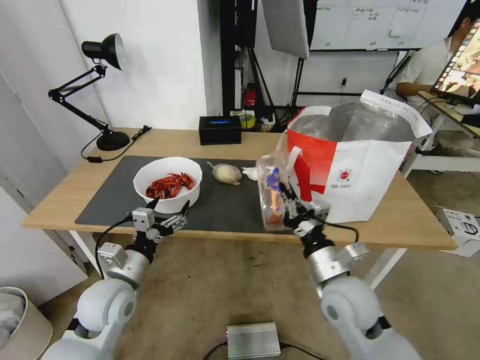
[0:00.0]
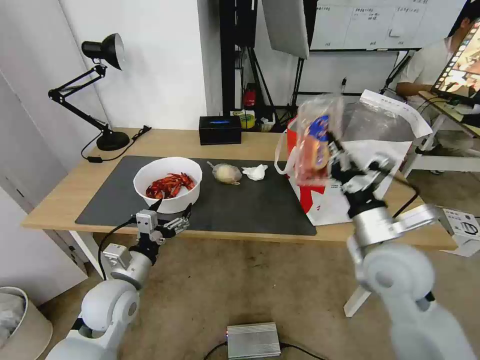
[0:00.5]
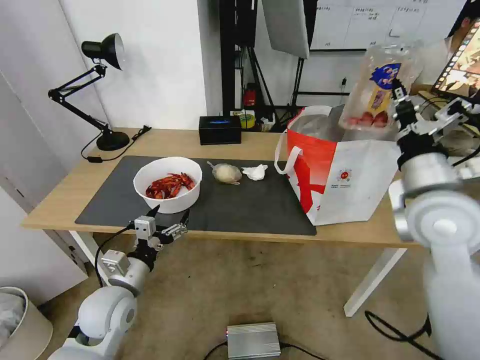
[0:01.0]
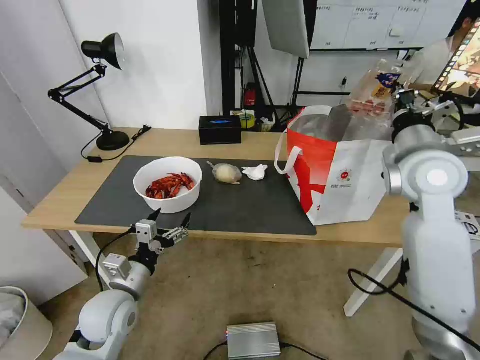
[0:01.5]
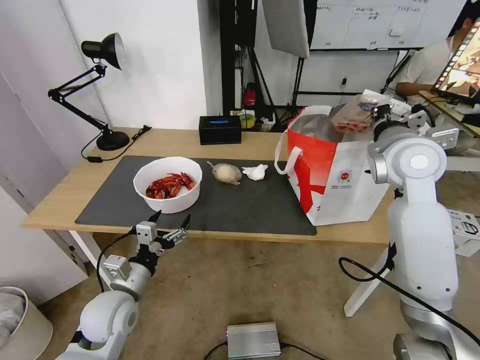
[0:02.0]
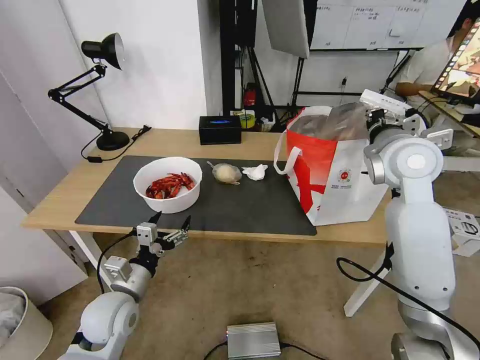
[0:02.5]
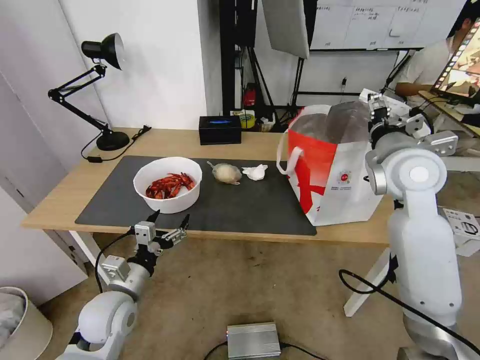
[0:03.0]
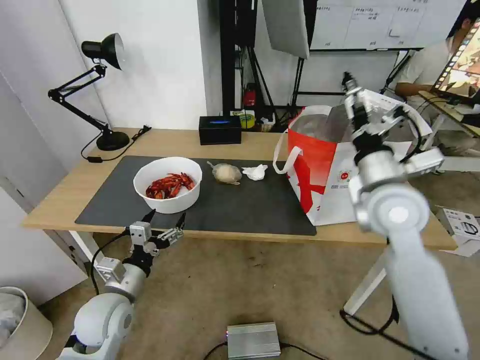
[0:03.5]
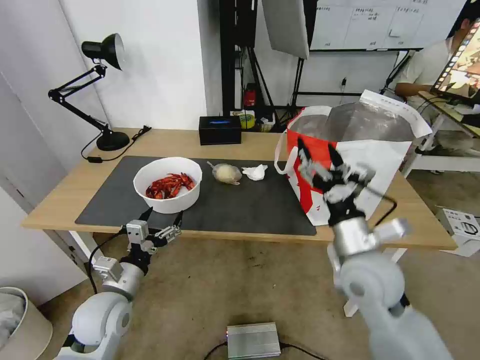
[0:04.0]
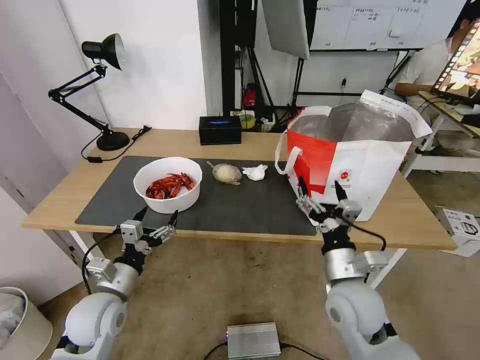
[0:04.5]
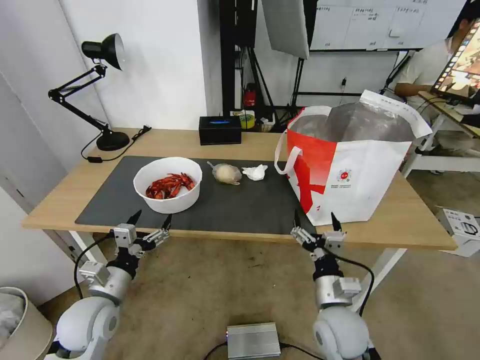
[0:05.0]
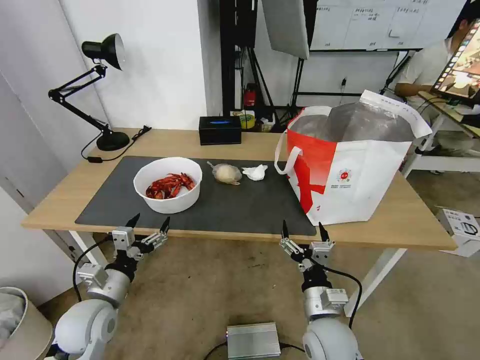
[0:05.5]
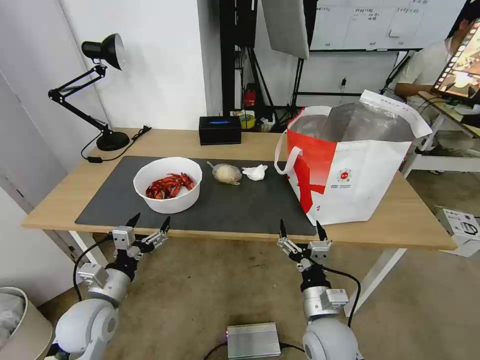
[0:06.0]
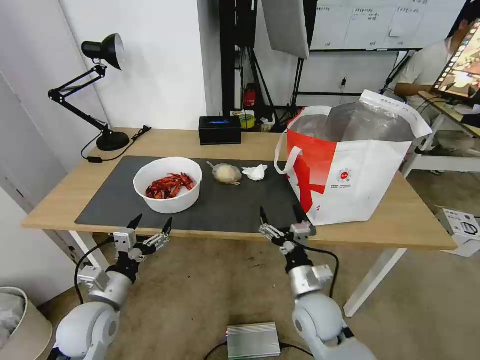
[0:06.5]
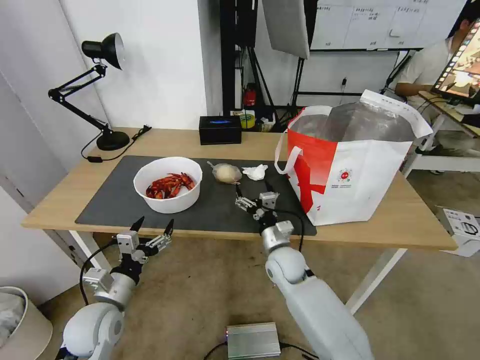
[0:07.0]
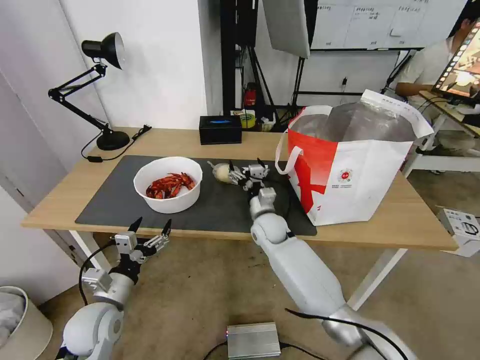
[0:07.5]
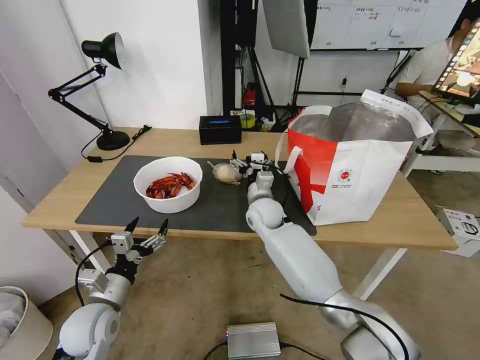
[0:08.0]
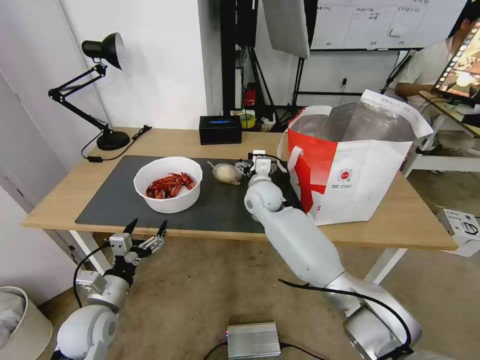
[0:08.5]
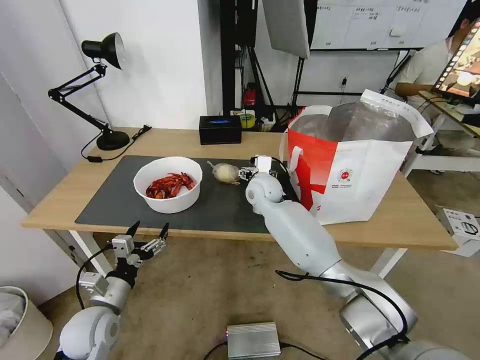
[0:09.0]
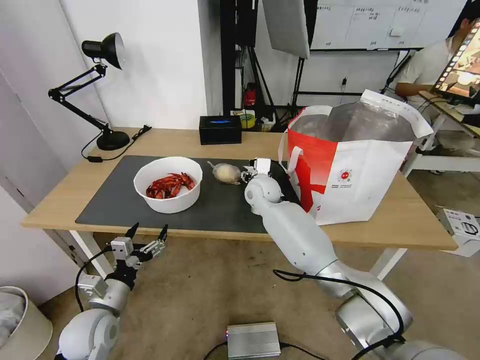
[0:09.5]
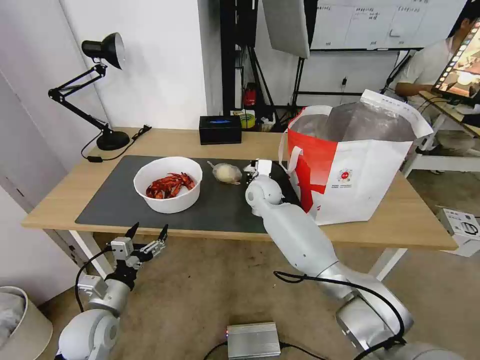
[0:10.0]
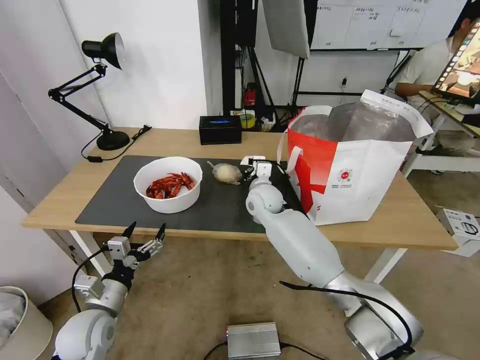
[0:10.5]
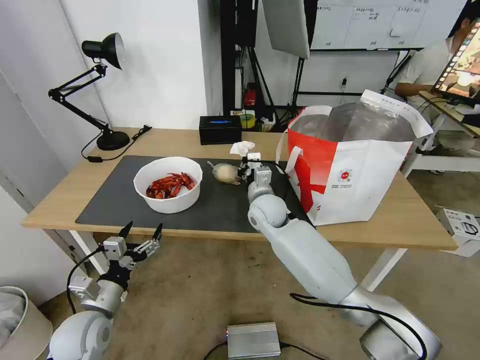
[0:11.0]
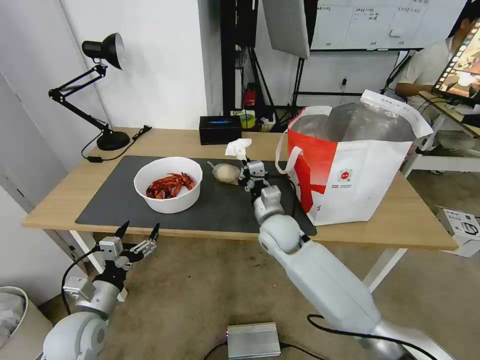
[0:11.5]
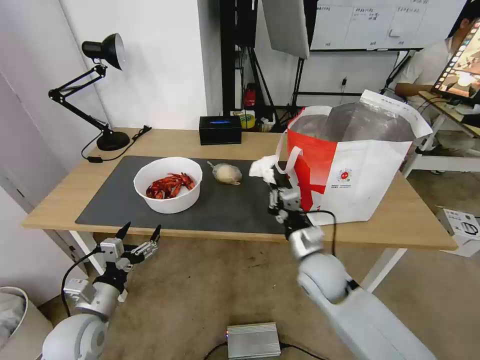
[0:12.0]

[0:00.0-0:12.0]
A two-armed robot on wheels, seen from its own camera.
Task of the whole recording: Pick up the trash from the table and place it into the takeout bag.
0:00.0 to 0:02.0: The right gripper travels upward, forward and to the right by roughly 30 cm.
0:02.0 to 0:04.0: The right gripper travels backward, downward and to the left by some 20 cm, and opens its fingers.
0:04.0 to 0:06.0: The right gripper moves downward and backward, roughly 15 cm.
0:06.0 to 0:08.0: The right gripper is displaced forward by approximately 30 cm.
0:08.0 to 0:10.0: The right gripper changes place by about 5 cm, and closes its fingers.
0:10.0 to 0:12.0: The right gripper shifts roughly 25 cm backward and to the right.

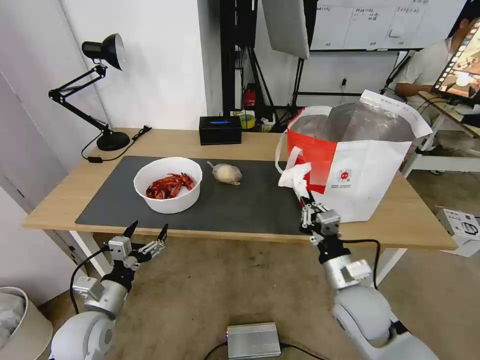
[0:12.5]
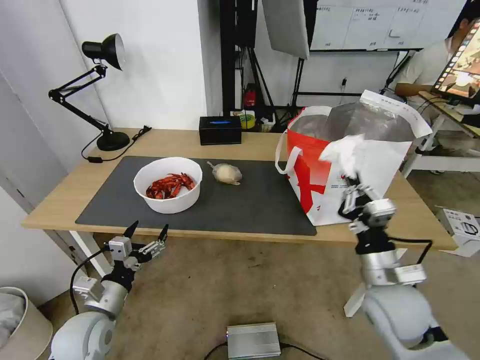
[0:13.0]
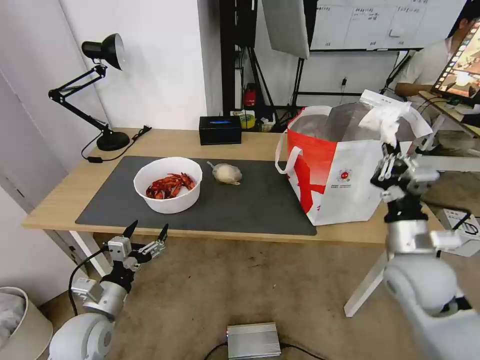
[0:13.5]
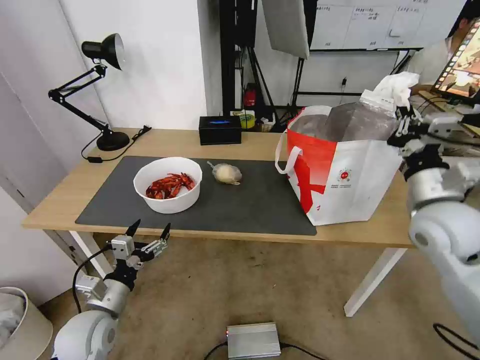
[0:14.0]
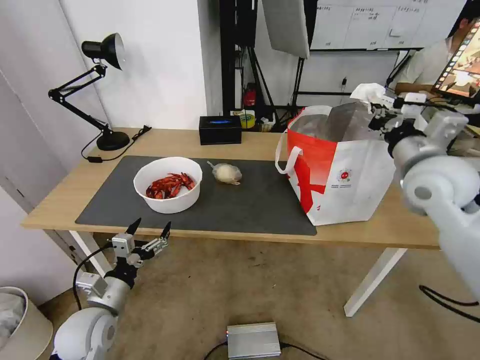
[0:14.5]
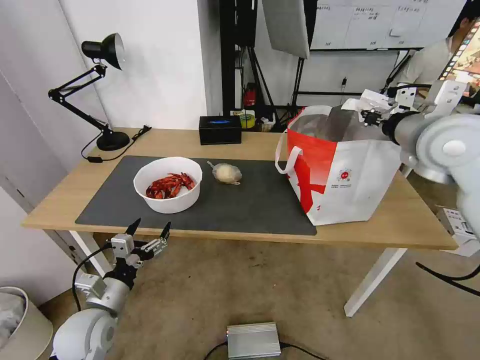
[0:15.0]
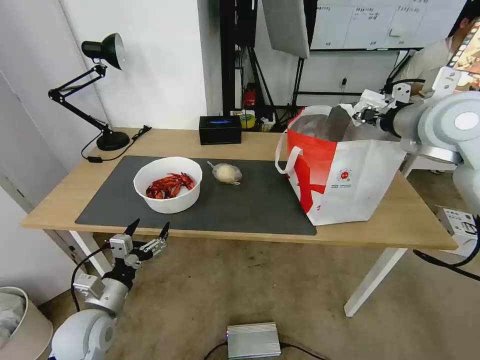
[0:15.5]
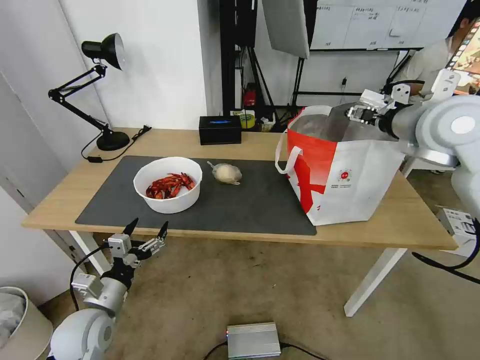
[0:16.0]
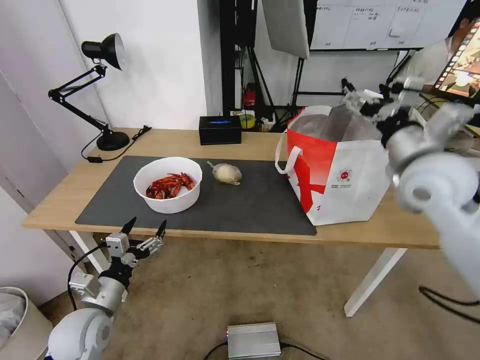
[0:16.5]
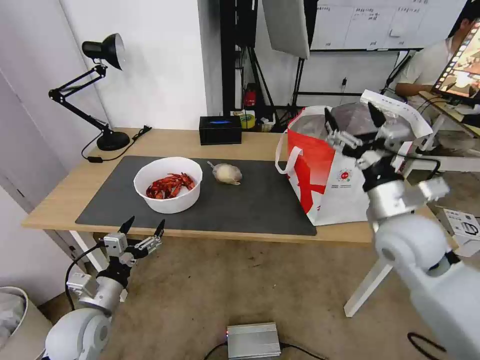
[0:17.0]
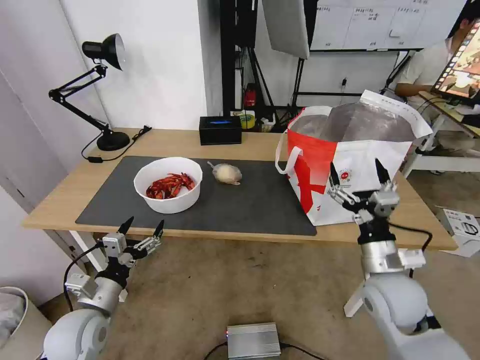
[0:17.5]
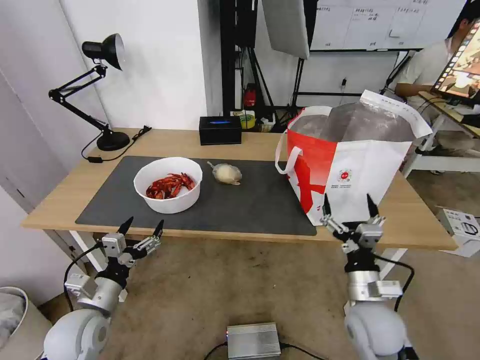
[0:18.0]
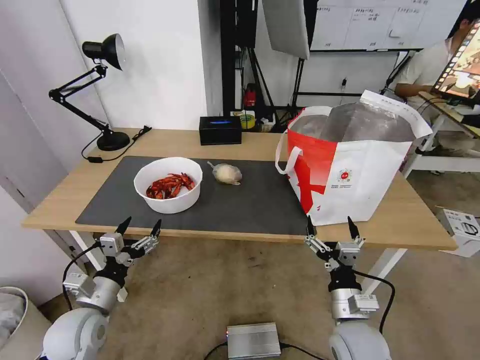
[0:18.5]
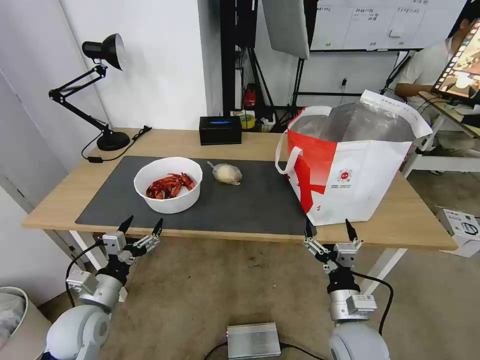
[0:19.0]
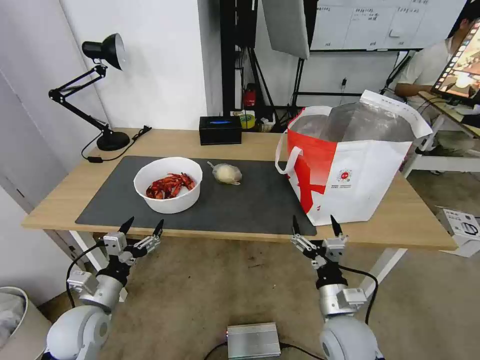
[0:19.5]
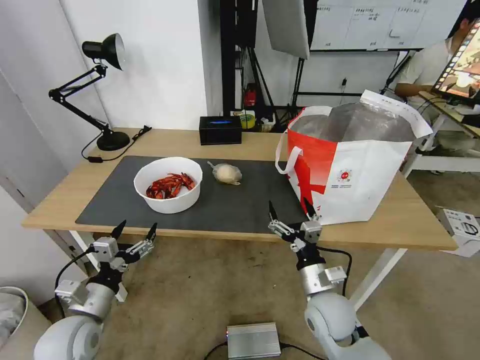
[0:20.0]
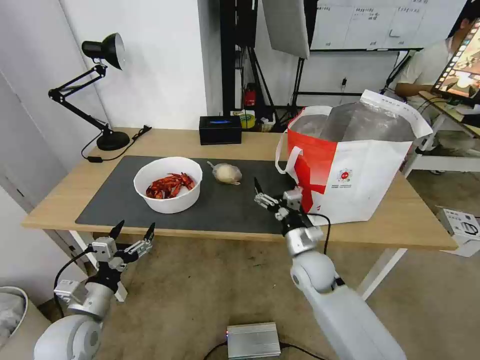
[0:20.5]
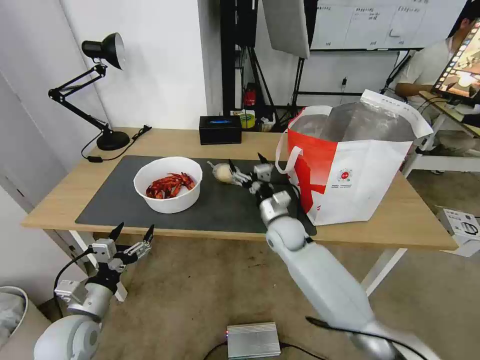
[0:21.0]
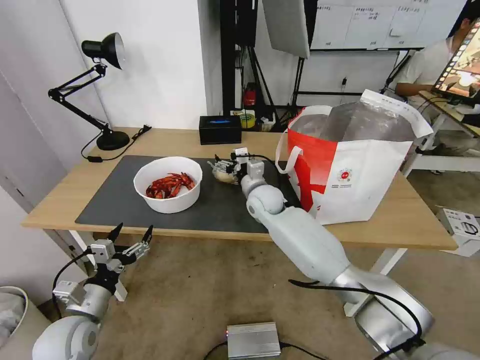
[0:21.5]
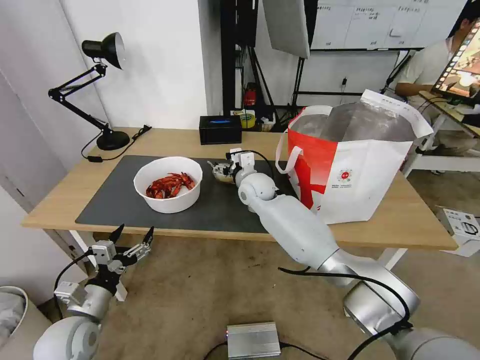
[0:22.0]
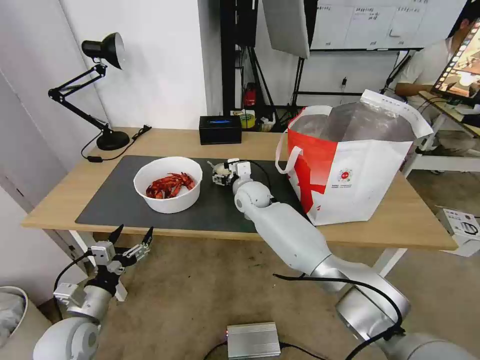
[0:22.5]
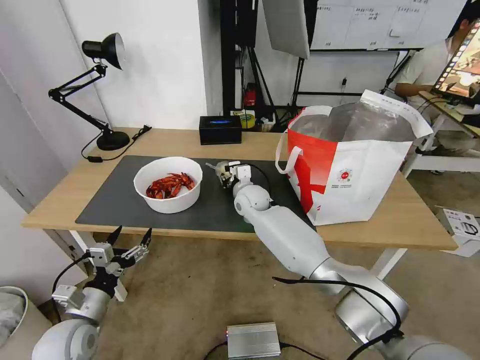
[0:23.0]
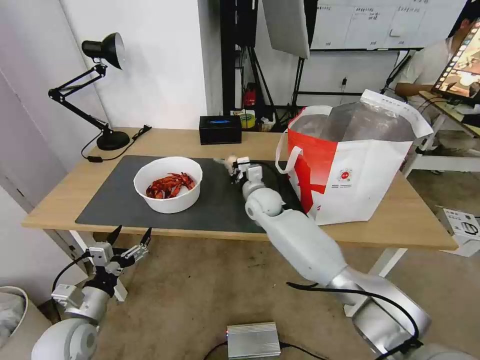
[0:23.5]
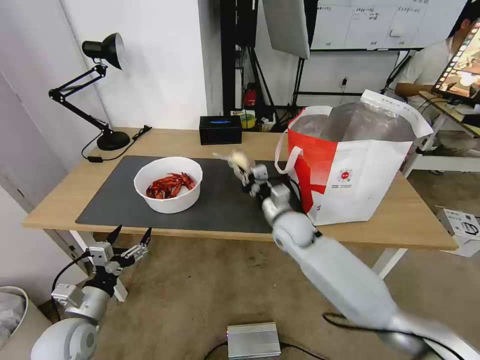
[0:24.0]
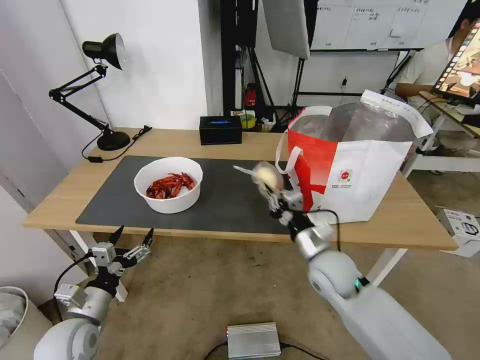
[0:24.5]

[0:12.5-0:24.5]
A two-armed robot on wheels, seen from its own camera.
Task of the whole recording: Pick up the trash from the table and place it into the takeout bag.
0:12.5 to 0:14.5: The right gripper moves upward, forward and to the right, roughly 30 cm.
0:14.5 to 0:16.5: The right gripper reaches approximately 10 cm upward, then returns, and opens.
0:16.5 to 0:18.5: The right gripper heads downward and backward, covering approximately 30 cm.
0:18.5 to 0:20.5: The right gripper goes about 15 cm forward.
0:20.5 to 0:22.5: The right gripper heads forward and to the left, covering about 20 cm.
0:22.5 to 0:24.5: The right gripper is displaced backward and to the right by some 30 cm, and closes up.

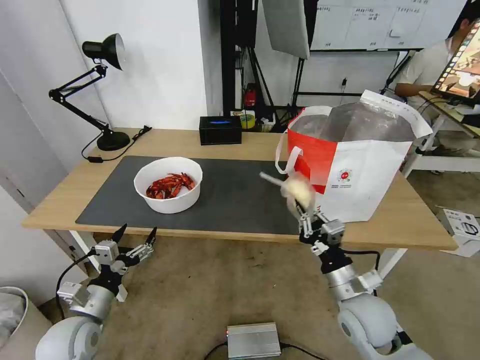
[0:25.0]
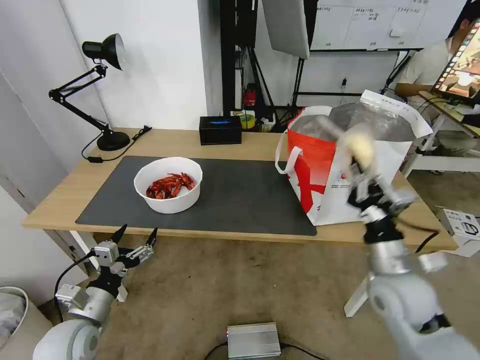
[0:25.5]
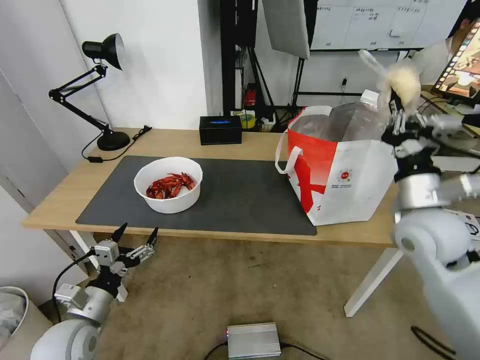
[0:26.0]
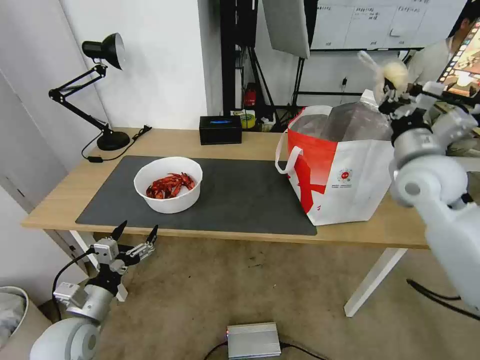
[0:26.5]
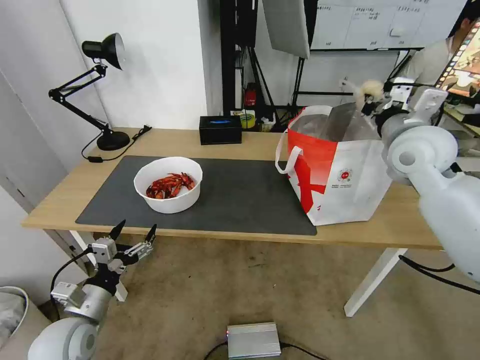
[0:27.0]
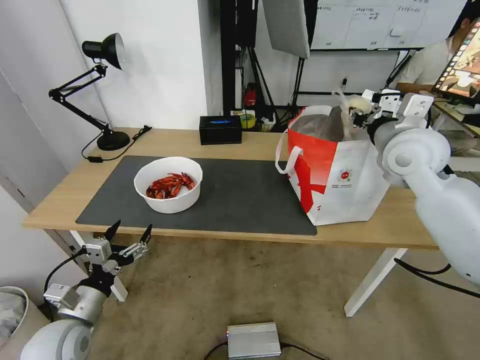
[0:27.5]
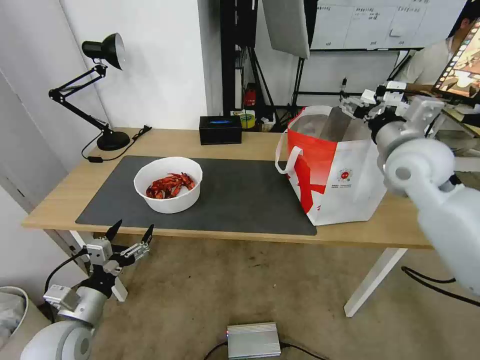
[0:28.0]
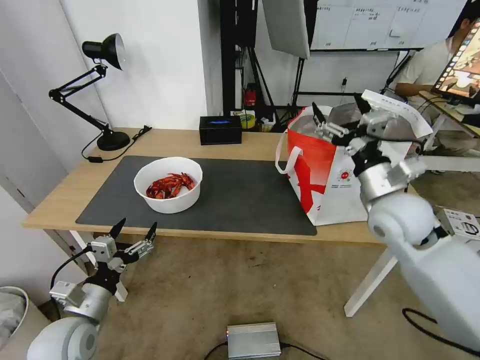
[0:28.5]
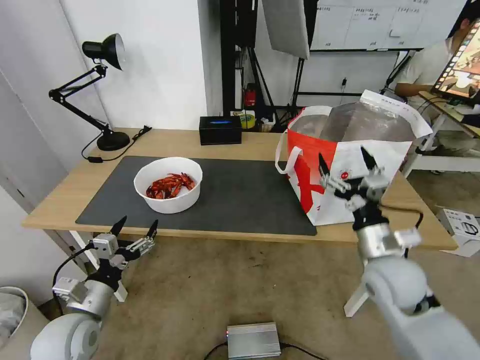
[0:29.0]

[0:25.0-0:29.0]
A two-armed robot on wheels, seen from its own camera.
Task of the whole recording: Pick up the trash from the table and place it into the takeout bag.
0:25.0 to 0:27.0: The right gripper moves upward and forward, approximately 35 cm.
0:27.0 to 0:29.0: The right gripper travels downward and backward by some 25 cm, and opens up.
